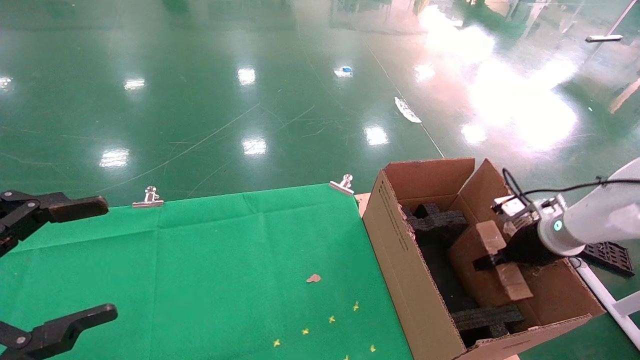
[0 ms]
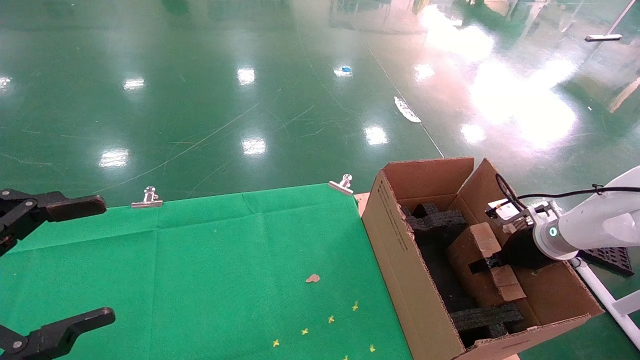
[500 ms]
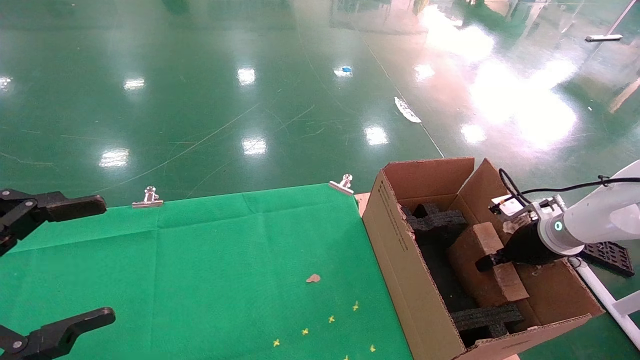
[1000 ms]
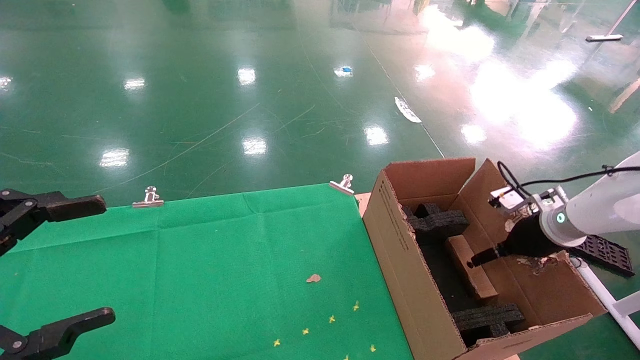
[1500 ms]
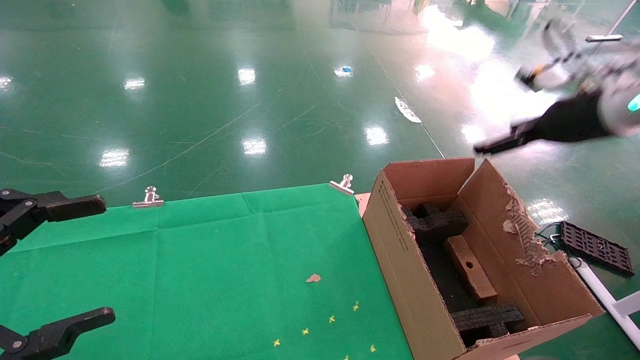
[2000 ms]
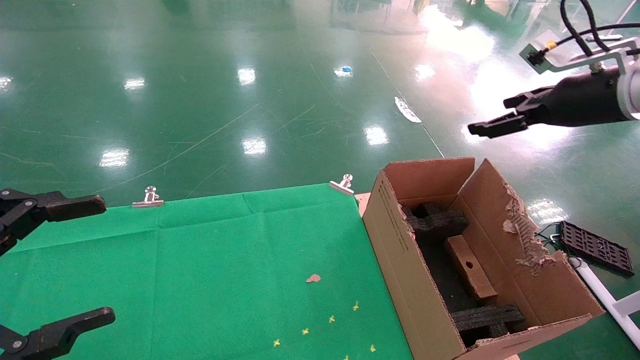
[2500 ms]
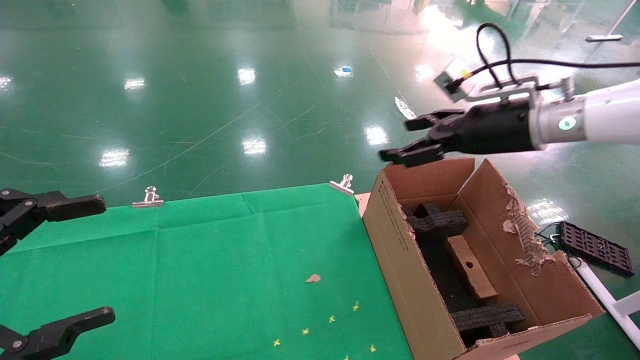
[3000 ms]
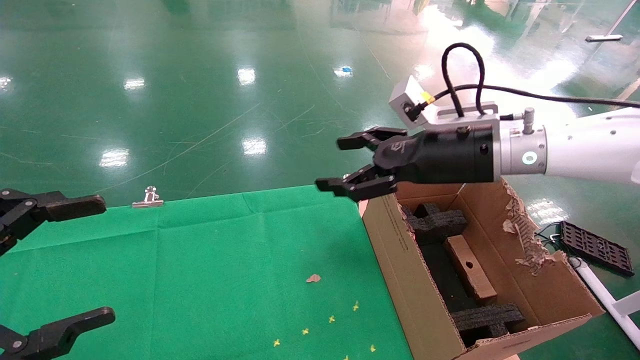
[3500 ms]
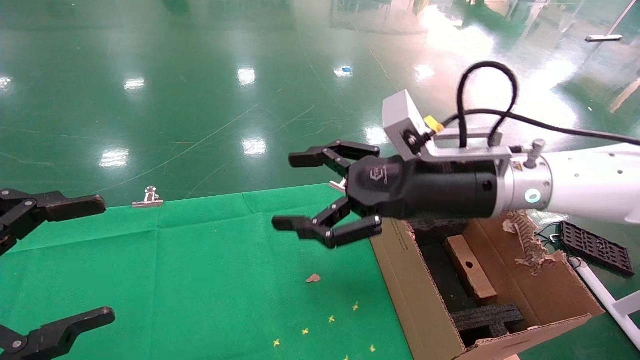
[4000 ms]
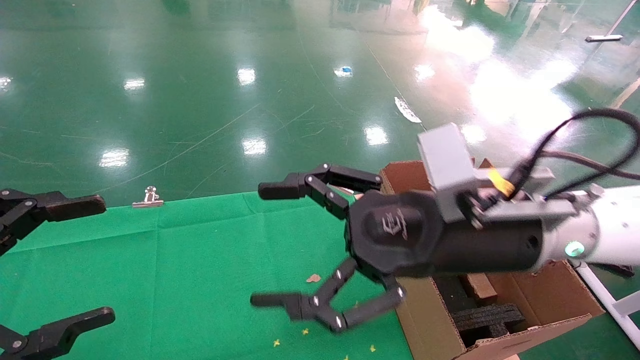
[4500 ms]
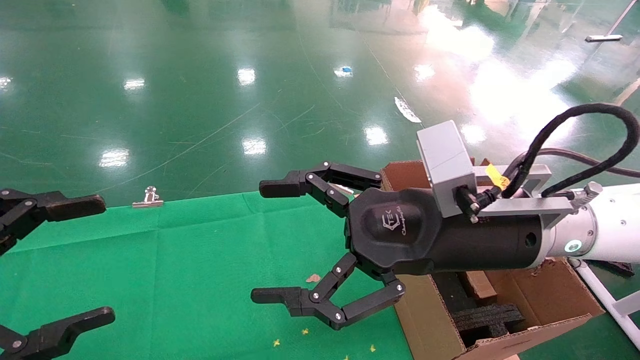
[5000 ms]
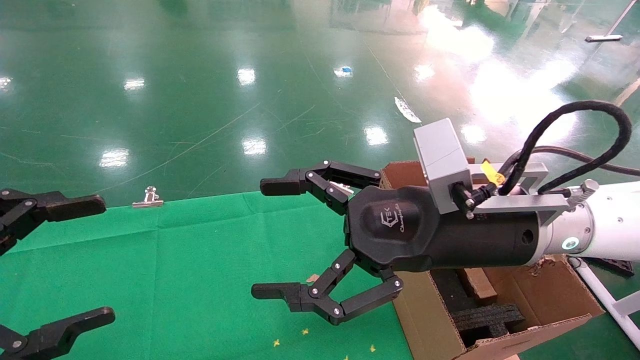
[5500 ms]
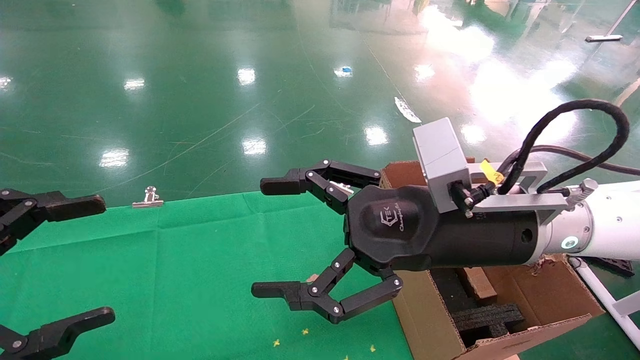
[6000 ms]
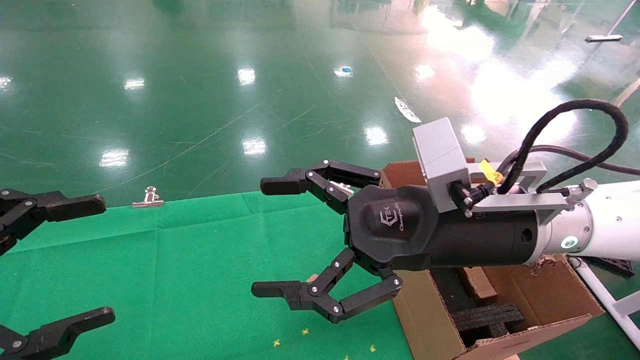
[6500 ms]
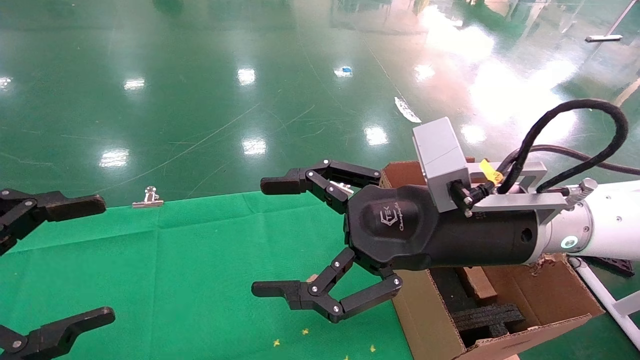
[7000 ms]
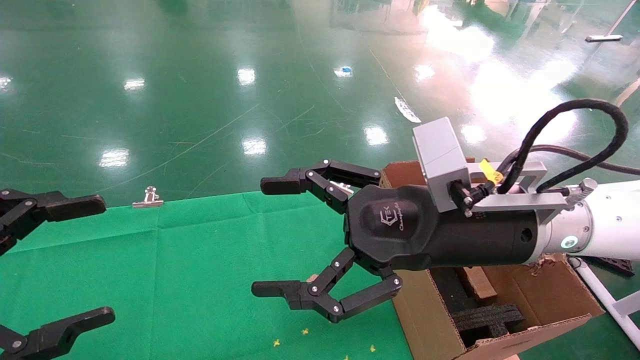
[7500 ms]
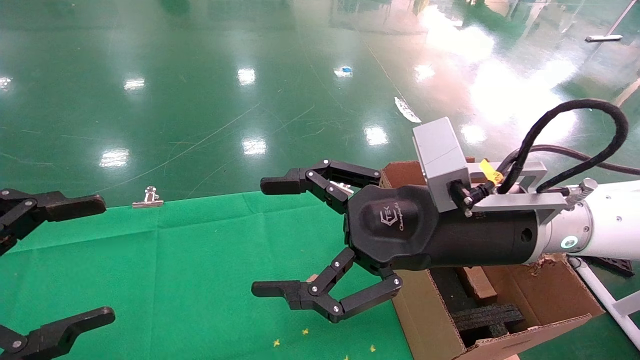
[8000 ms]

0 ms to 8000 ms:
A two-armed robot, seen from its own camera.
Task of the whole recording: using a robotic arm to pick up a cardboard box and palace it the carton.
0 ms to 2000 ms: The right gripper heads upward, covering some 20 cm, and opens.
2000 ms to 4000 ms: The right gripper travels to the left by roughly 25 cm.
4000 ms to 6000 ms: The right gripper goes some 5 cm backward.
6000 ms to 8000 ms: The two grippers keep their place.
